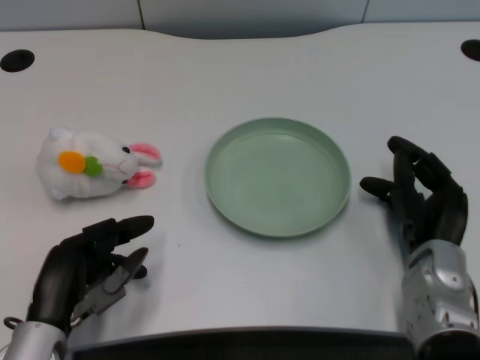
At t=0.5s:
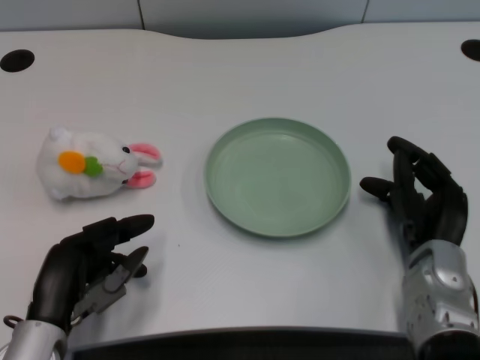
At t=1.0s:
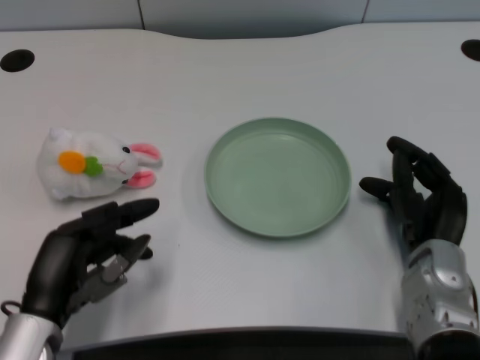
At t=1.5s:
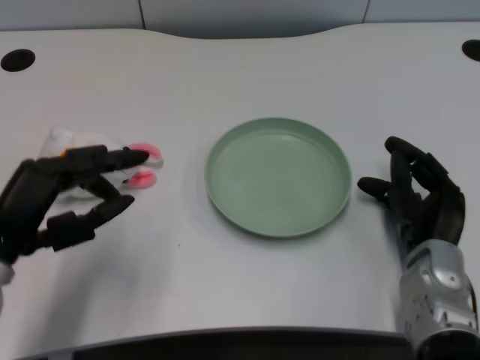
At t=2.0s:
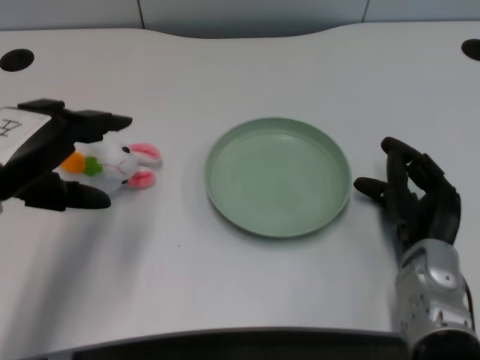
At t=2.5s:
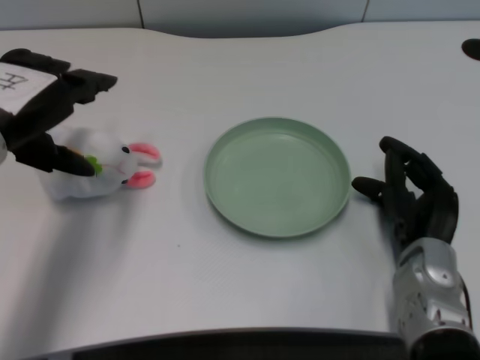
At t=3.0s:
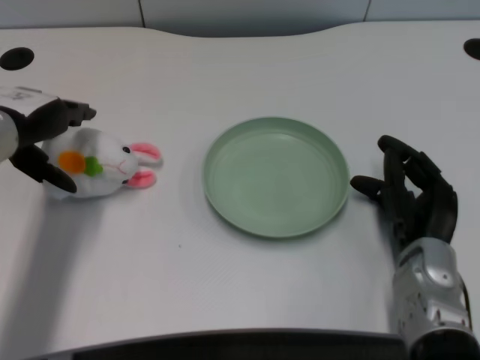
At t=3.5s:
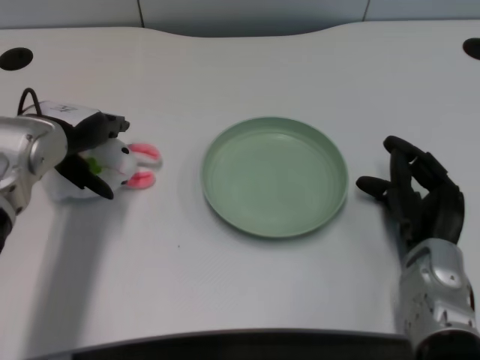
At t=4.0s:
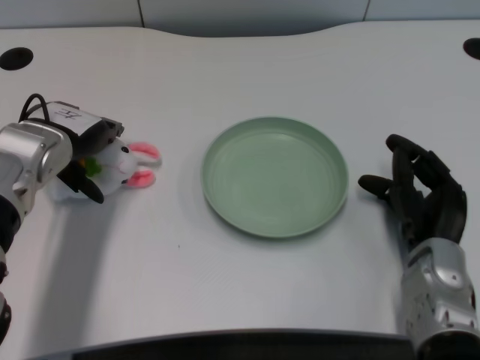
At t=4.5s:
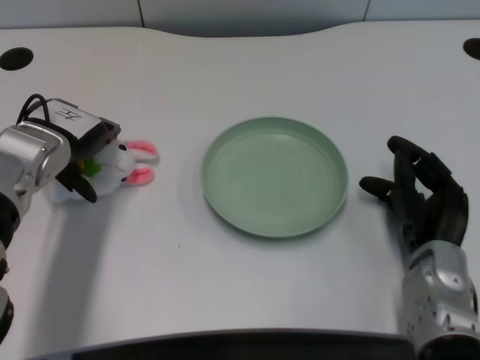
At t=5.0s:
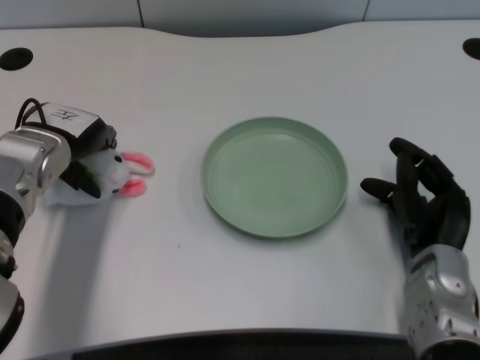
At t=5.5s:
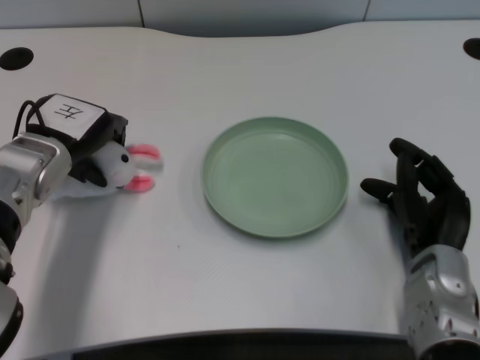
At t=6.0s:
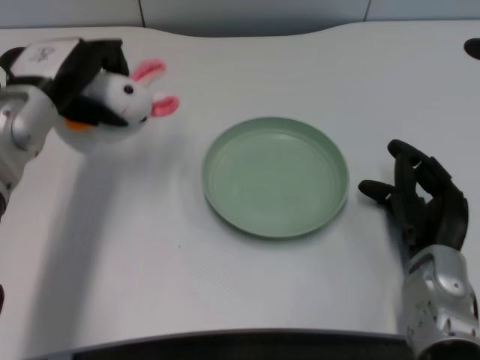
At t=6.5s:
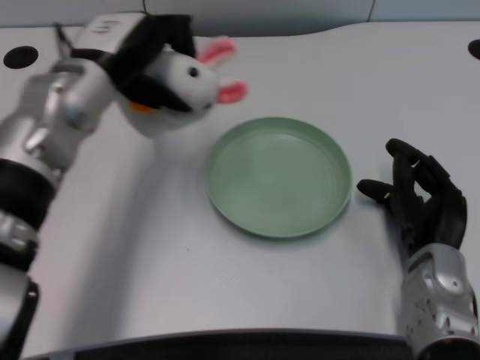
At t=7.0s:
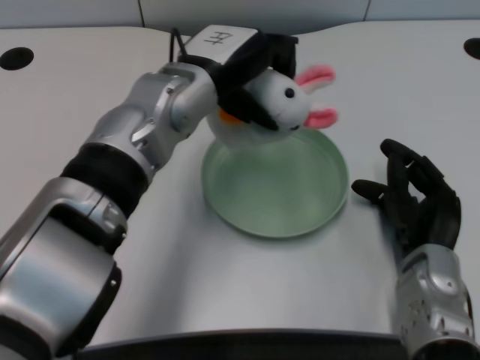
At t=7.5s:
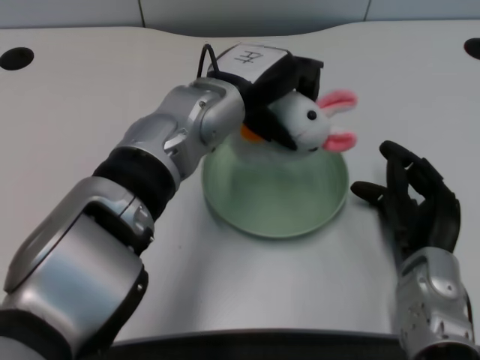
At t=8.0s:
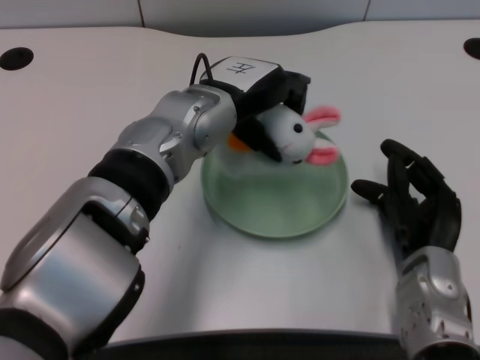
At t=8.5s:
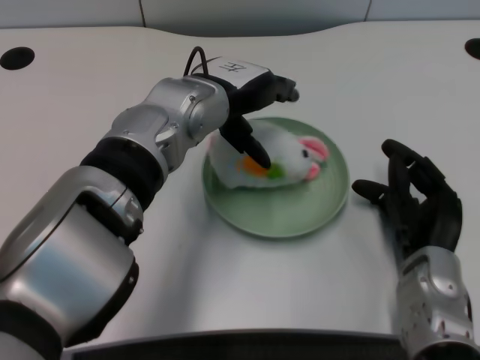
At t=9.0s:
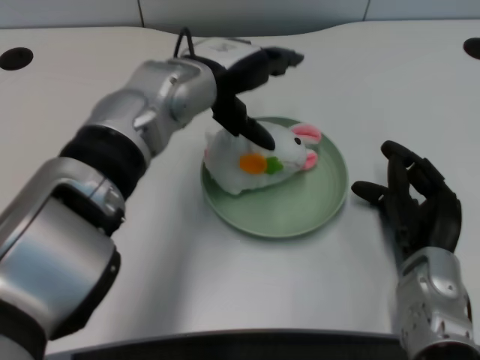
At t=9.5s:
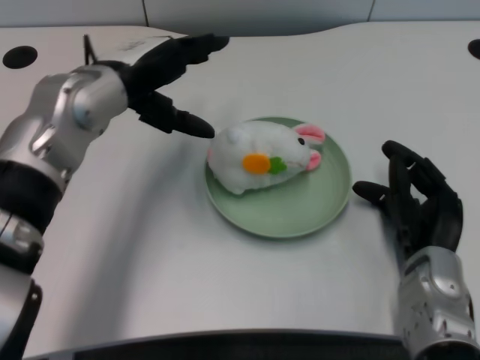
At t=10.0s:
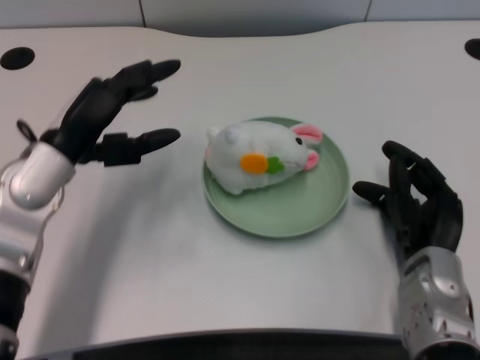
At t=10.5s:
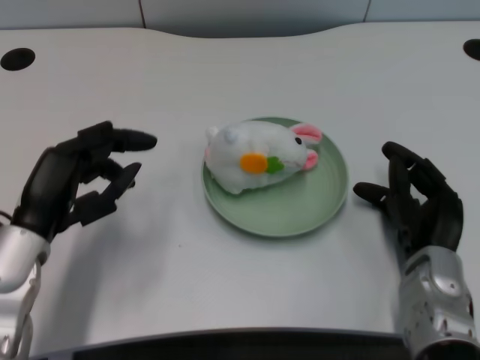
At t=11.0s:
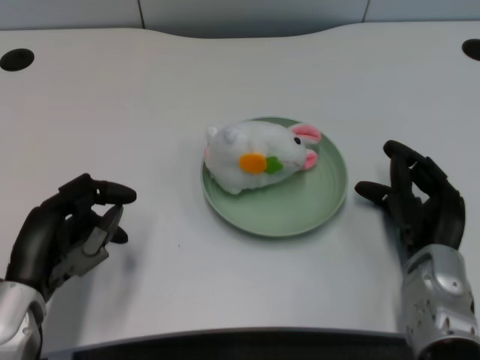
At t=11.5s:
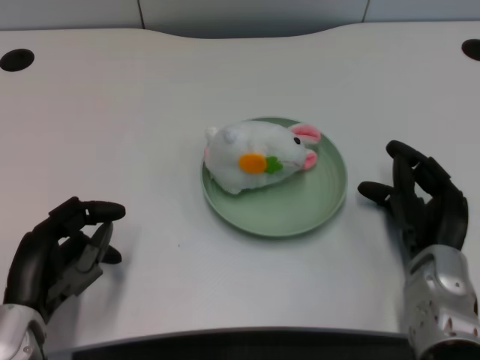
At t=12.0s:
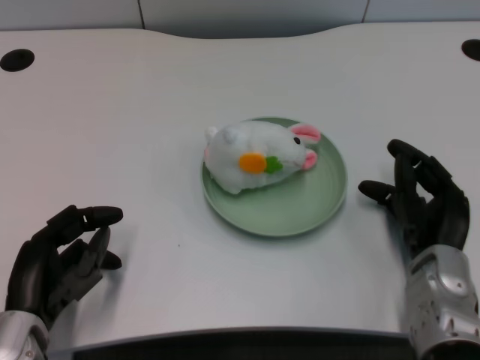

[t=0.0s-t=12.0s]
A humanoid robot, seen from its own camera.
Task of the whole recording: pick up the rabbit doll from the table and place it on the plate.
Step, t=1.0s to t=5.5s: Grasp the rabbit doll with the left gripper.
Step, t=6.0s to t=8.5s: Place the rabbit doll into the plate with the left gripper.
t=2.0s to t=4.0s: The left hand shifts roughly 10 cm forward.
t=6.0s to t=8.0s: The left hand heads to the right, covering some 15 cm.
t=8.0s to t=10.0s: The left hand shifts some 15 cm to the left and backward.
t=10.0s to t=12.0s: The left hand moves backward and downward, roughly 15 cm.

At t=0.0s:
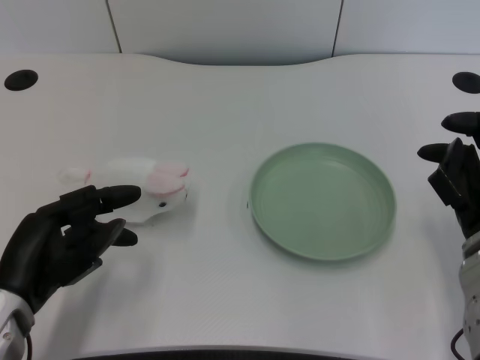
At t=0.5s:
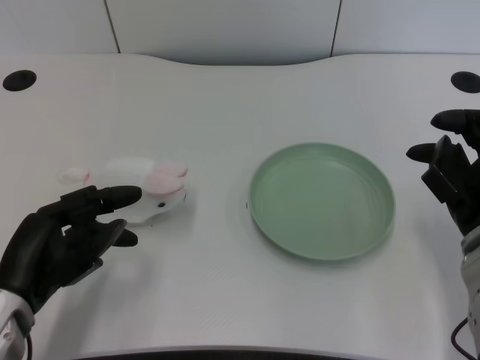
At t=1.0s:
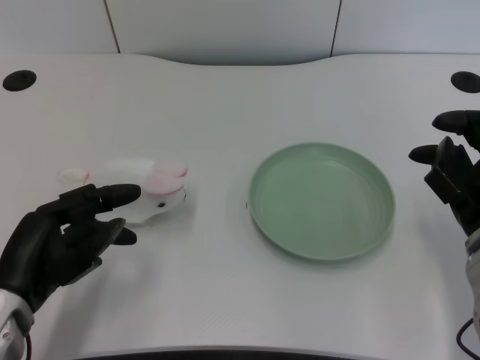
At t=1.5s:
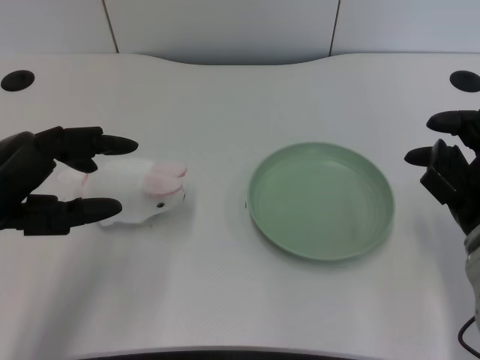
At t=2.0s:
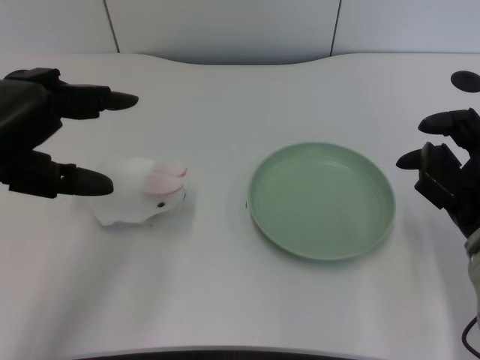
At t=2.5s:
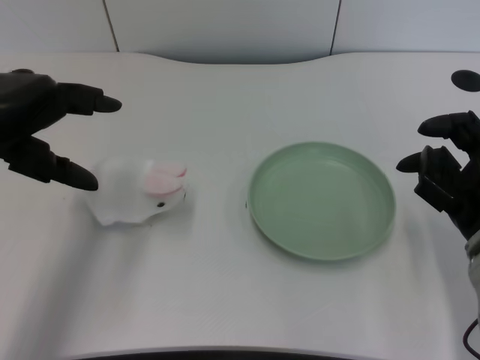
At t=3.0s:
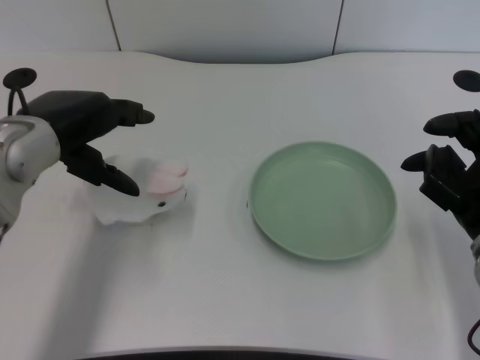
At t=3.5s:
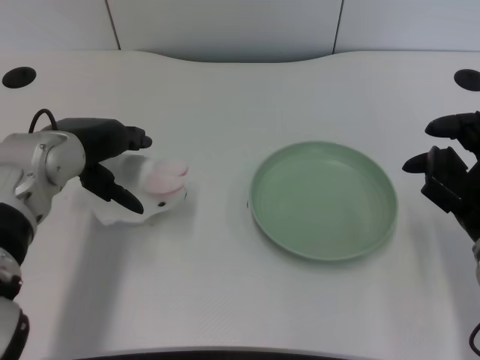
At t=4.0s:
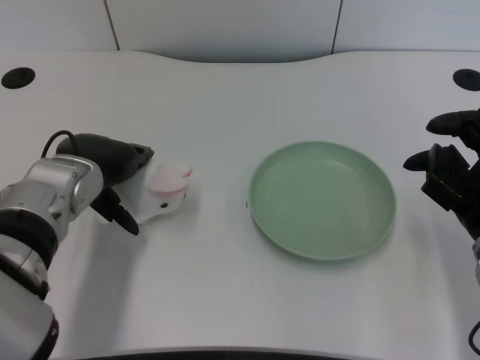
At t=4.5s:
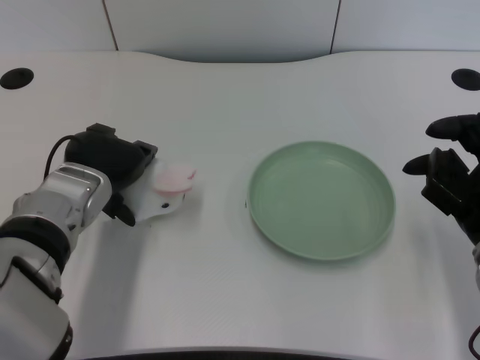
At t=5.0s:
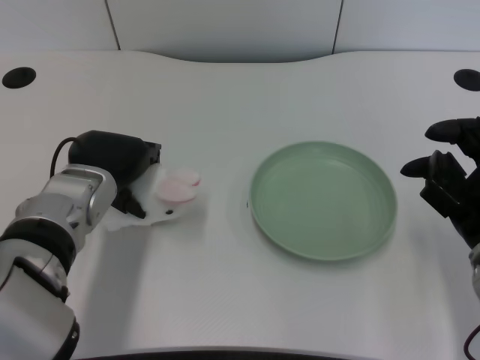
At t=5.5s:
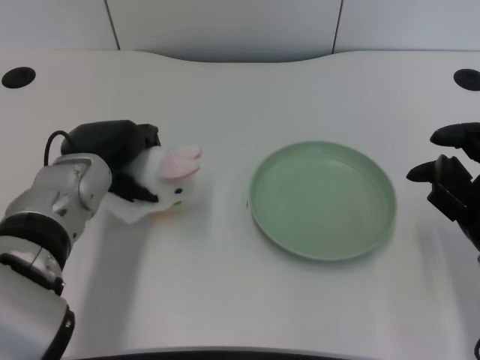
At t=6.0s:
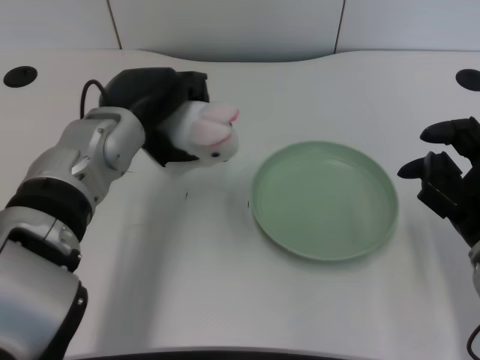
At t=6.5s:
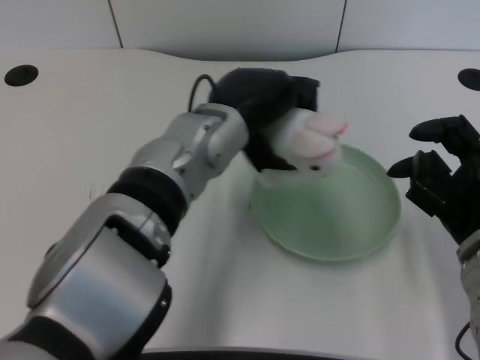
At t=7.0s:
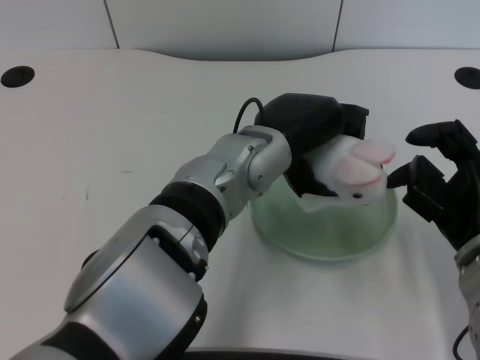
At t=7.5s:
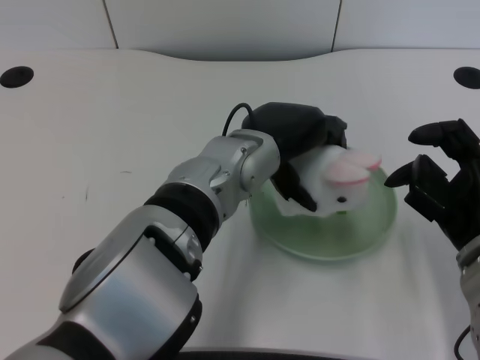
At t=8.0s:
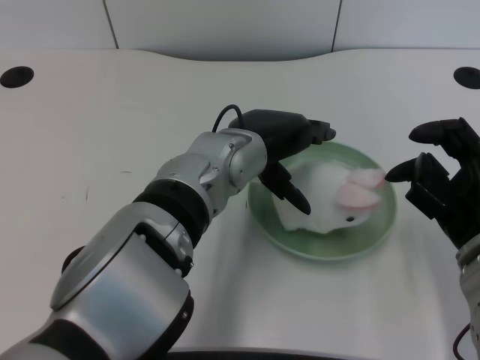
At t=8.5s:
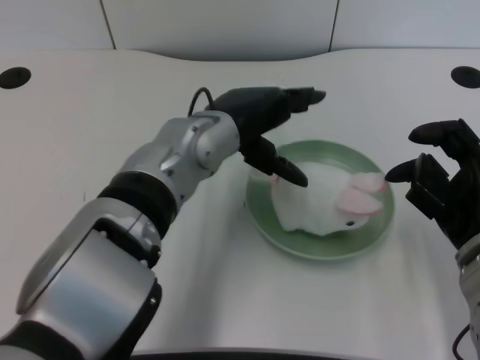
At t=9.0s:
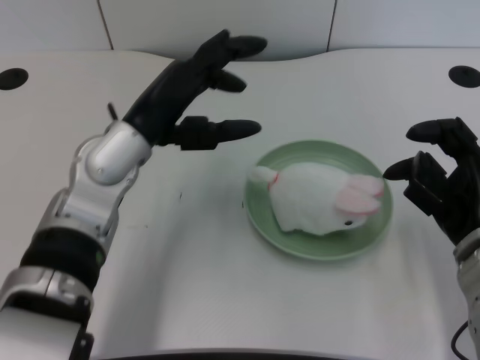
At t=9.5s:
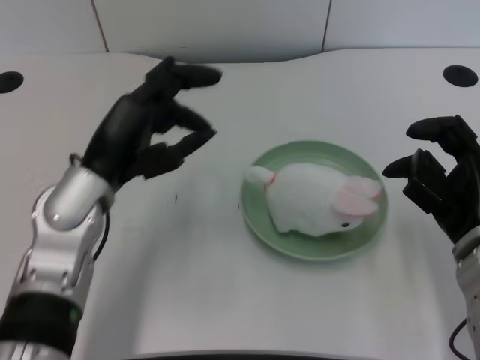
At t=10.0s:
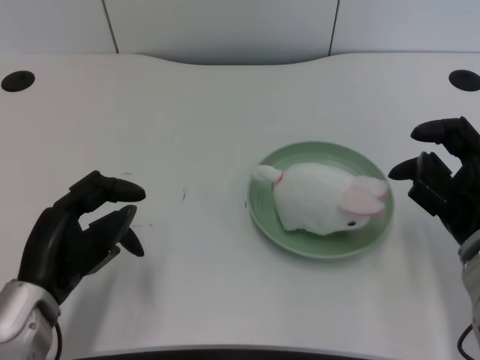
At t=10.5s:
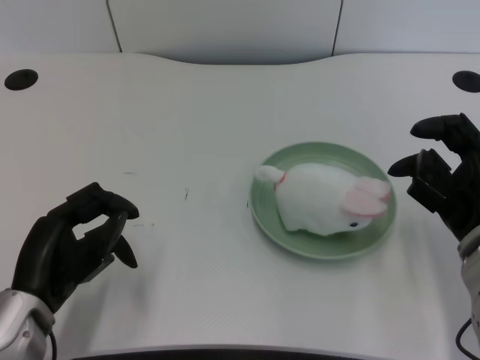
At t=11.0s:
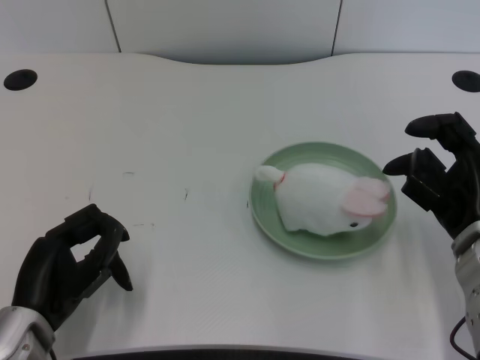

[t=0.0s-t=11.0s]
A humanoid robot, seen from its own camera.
Task of the whole recording: pick up the rabbit doll from the table and place it on the plate.
Step, t=1.5s to t=5.0s: Grasp the rabbit doll with the left gripper.
Step, t=6.0s to t=7.5s: Place the rabbit doll into the plate with the left gripper.
t=2.0s to t=3.5s: The left hand is displaced forward, downward and to the right by roughly 15 cm.
t=5.5s to t=7.5s: The left hand shifts roughly 15 cm to the right.
t=7.5s to t=9.0s: The left hand travels to the left by some 10 cm.
t=9.0s to t=11.0s: The left hand travels backward, downward and to the left by approximately 20 cm.

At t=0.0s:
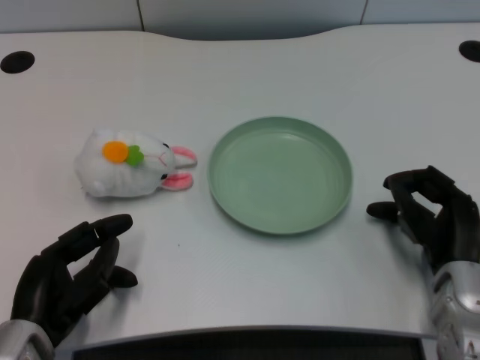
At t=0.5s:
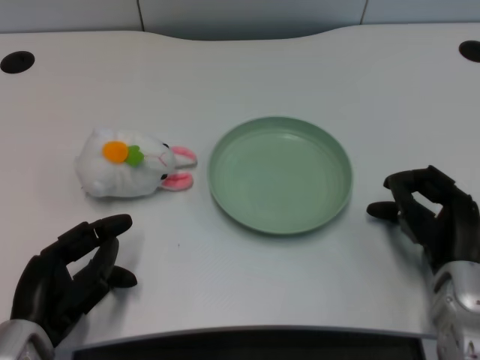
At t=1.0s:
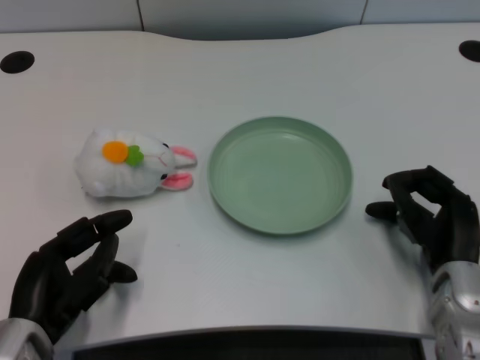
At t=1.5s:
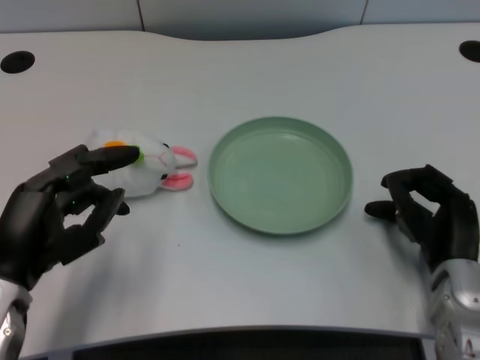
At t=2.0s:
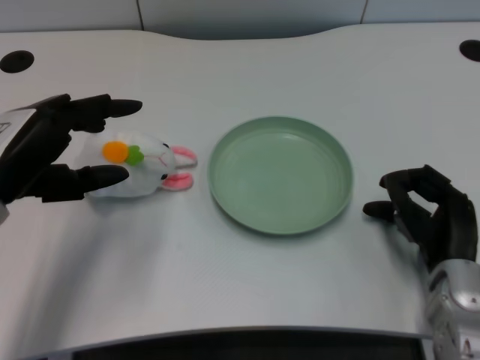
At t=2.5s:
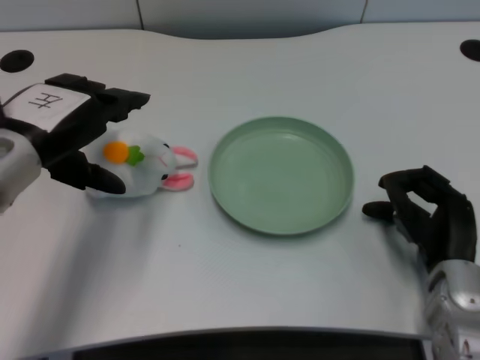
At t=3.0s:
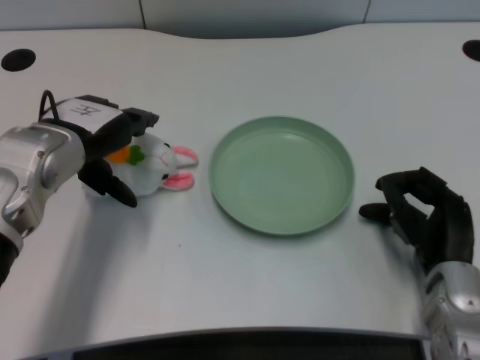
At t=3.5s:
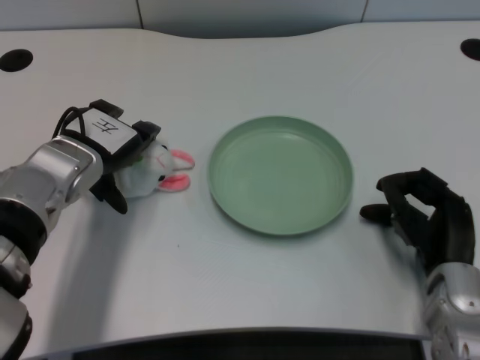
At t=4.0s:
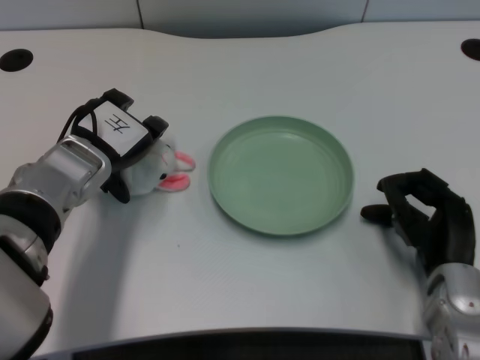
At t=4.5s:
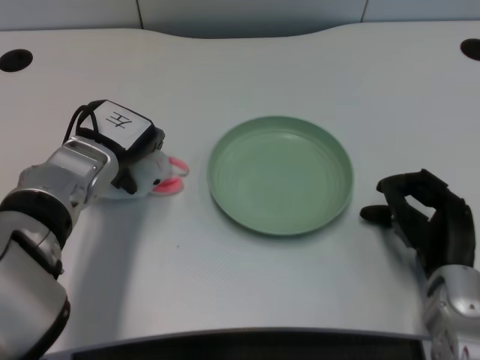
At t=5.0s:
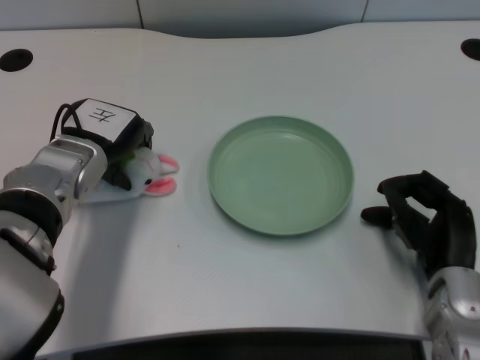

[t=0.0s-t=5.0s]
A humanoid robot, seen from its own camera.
Task of the whole recording: pick up the rabbit doll from the table and place it on the plate.
t=2.5s to t=5.0s: The left hand moves downward and forward, approximately 10 cm.
